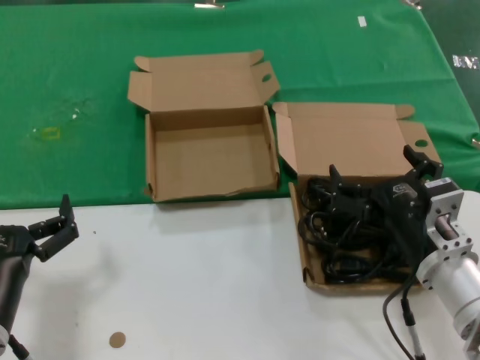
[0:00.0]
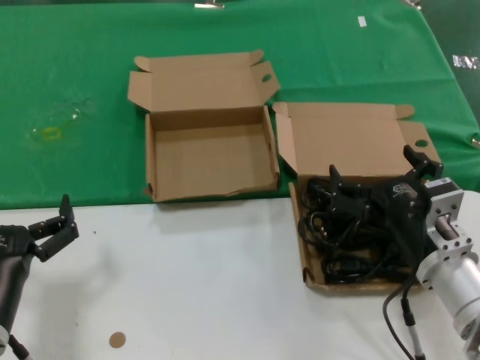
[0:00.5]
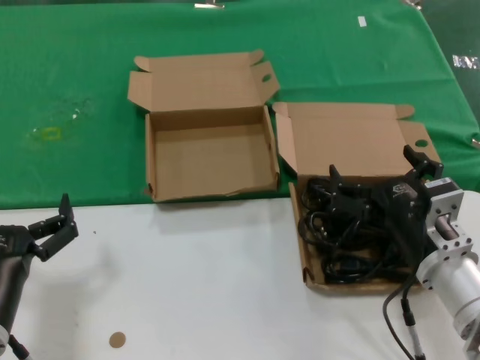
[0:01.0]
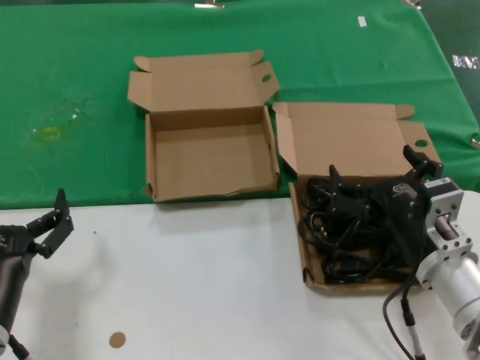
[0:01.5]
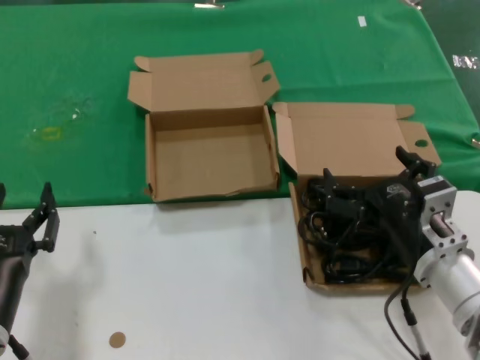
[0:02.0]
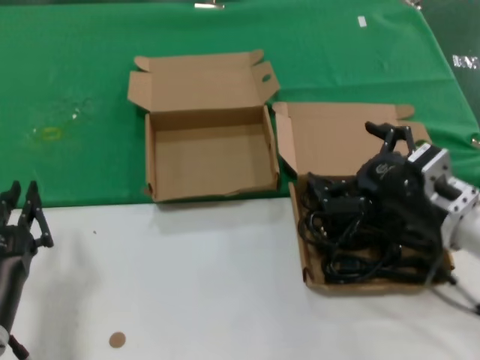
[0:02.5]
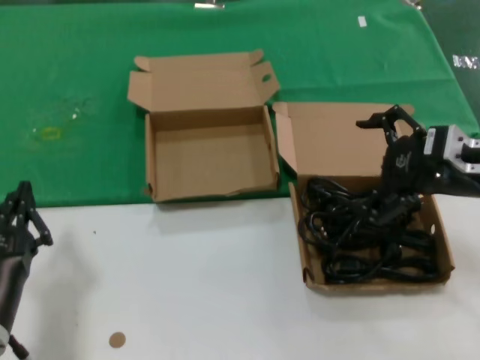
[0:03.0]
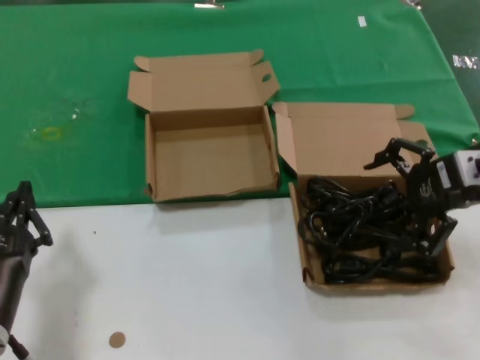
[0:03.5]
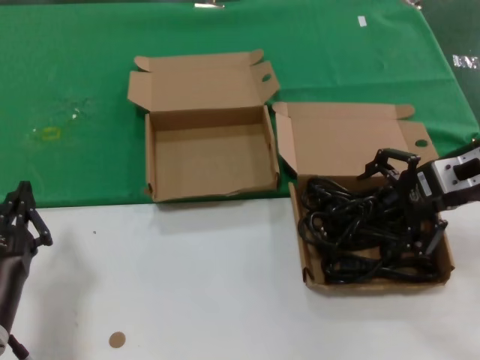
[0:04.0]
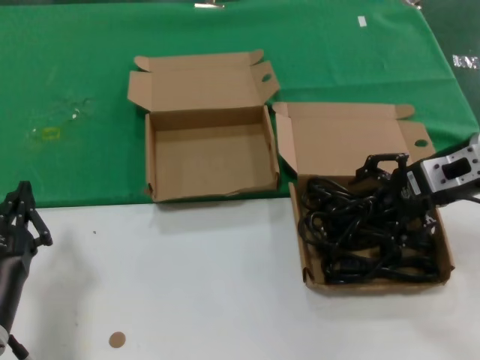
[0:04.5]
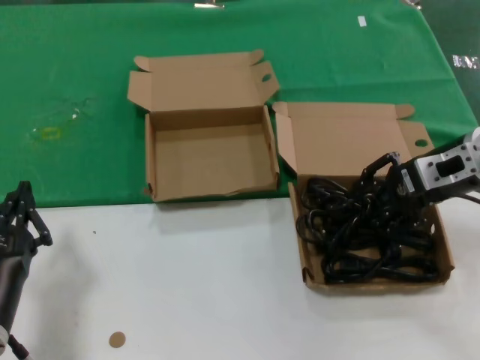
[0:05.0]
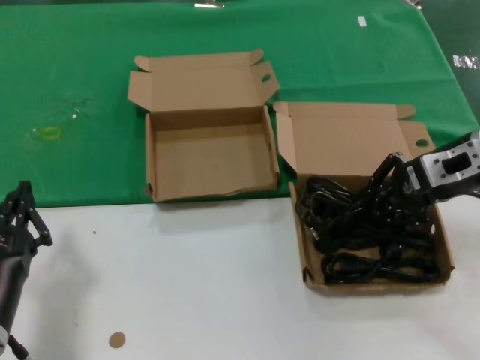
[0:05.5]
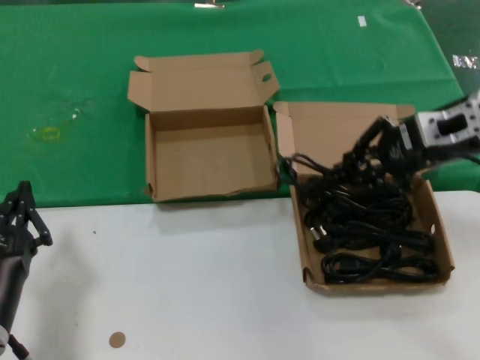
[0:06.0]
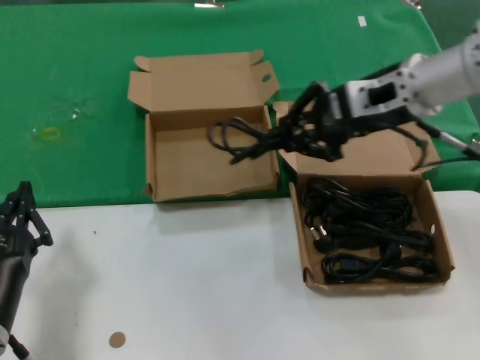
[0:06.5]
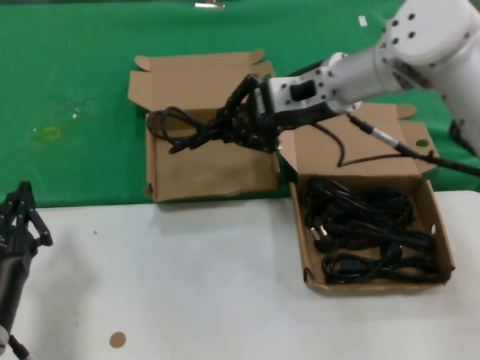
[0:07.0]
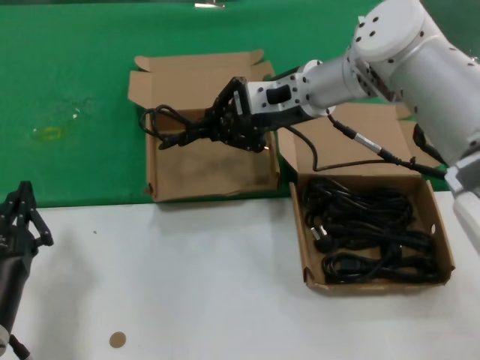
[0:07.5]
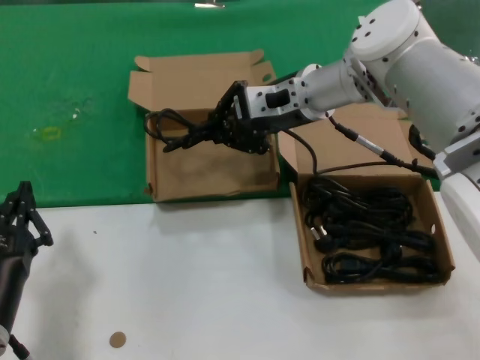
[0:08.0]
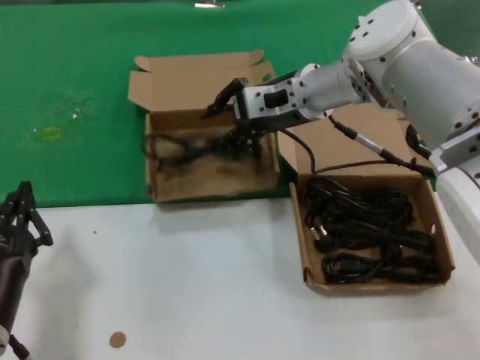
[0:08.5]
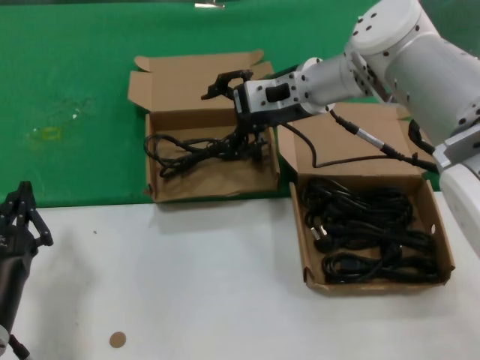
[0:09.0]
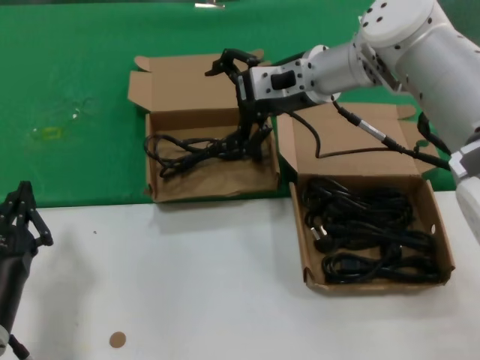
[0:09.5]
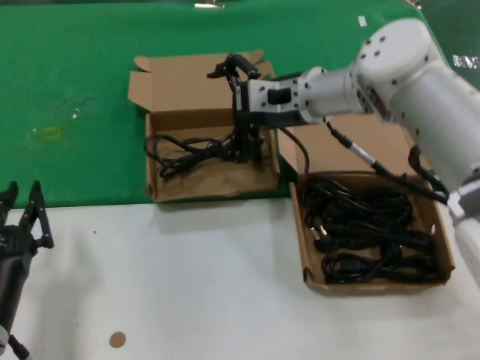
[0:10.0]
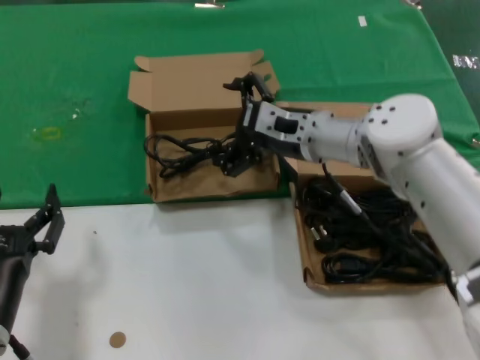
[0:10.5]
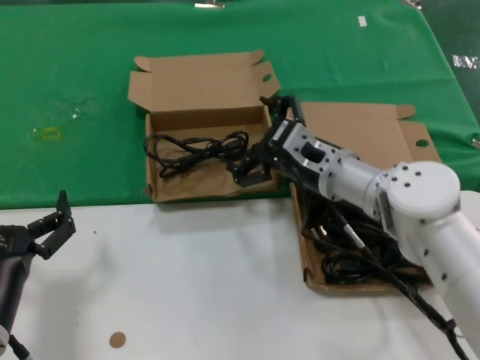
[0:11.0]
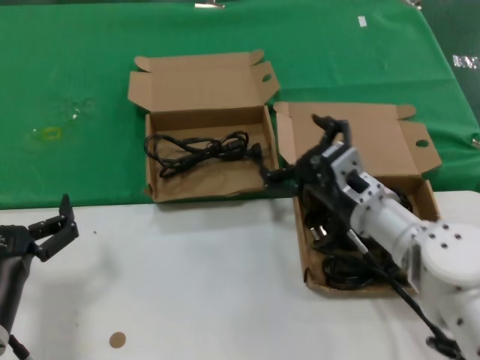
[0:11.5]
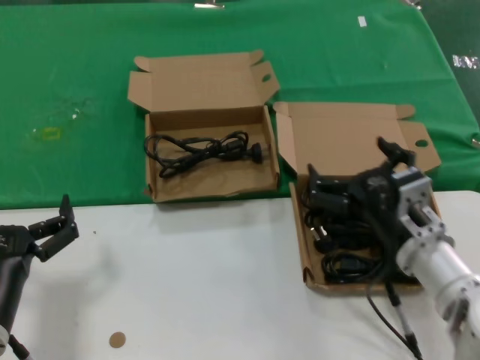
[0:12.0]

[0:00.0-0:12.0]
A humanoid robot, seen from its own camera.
Task of the whole recording: take the parts from the box containing them and put them into an empty box.
Step, 0:00.0 to 0:05.0: Grasp the data cable.
Step, 0:05.5 to 0:08.5: Place the data cable in the another box.
0:00.0 to 0:02.0: Both hands stay put.
0:02.0 to 0:04.0: The right hand goes roughly 25 cm upward, forward and to the right.
0:04.0 to 0:06.0: The hands stay close to where they were, moving slightly.
0:06.0 to 0:08.0: The right hand heads to the left and forward, covering approximately 20 cm.
0:08.0 to 0:10.0: The hands make only small movements.
0:10.0 to 0:12.0: The right hand travels backward and downward by about 25 cm.

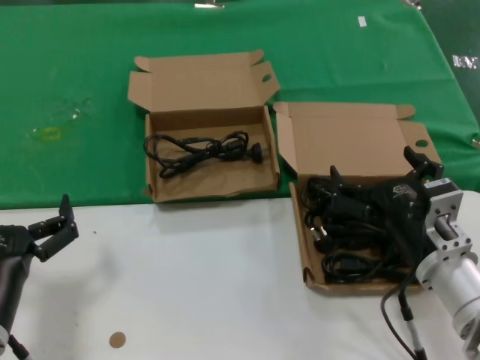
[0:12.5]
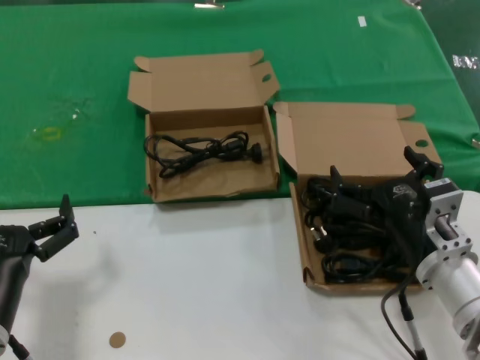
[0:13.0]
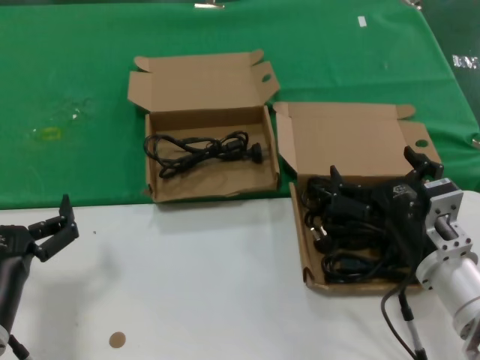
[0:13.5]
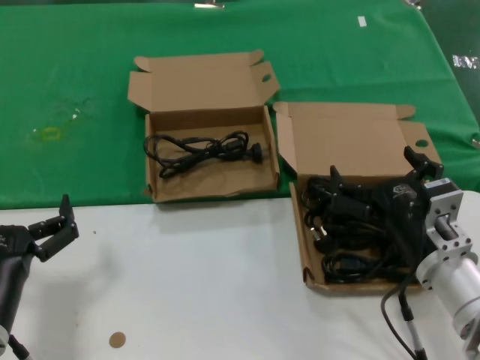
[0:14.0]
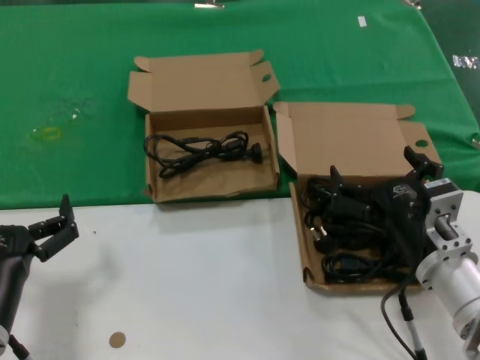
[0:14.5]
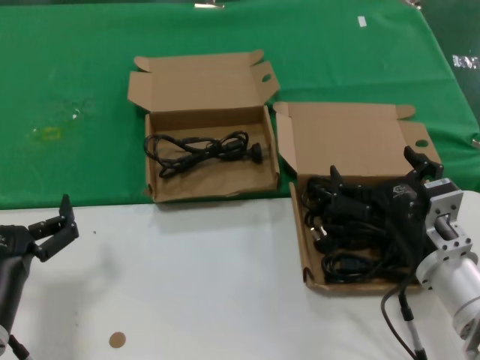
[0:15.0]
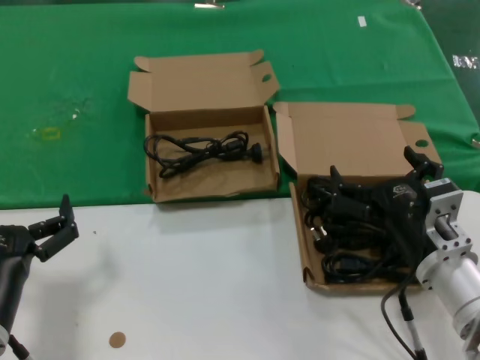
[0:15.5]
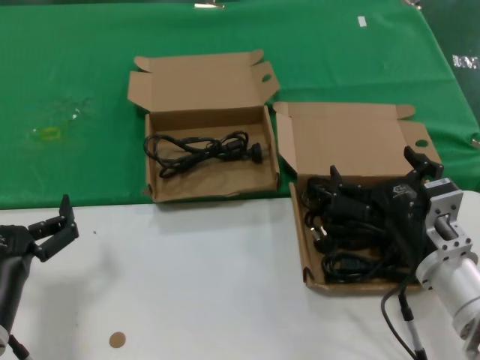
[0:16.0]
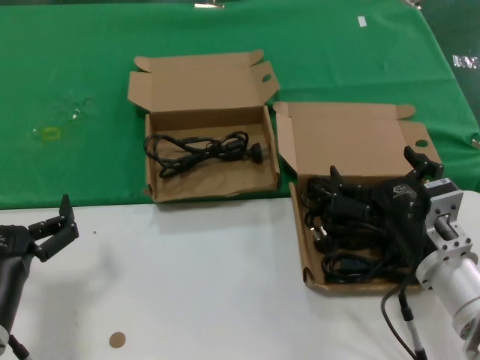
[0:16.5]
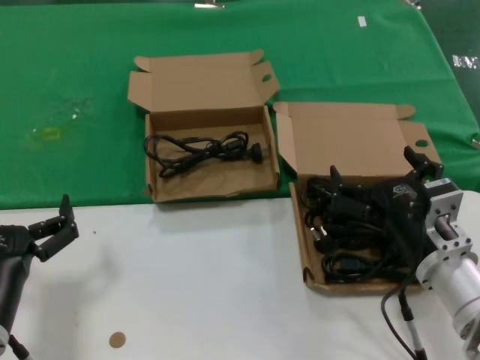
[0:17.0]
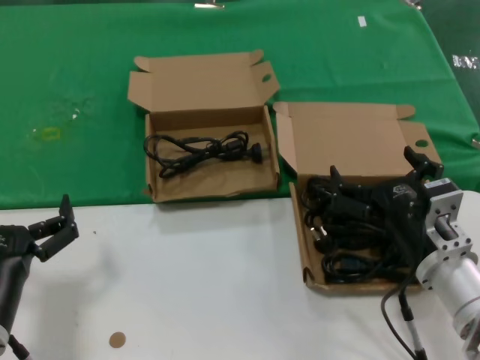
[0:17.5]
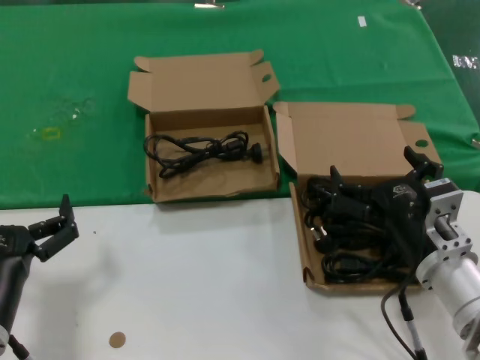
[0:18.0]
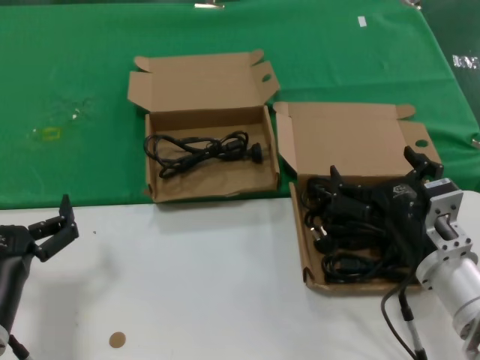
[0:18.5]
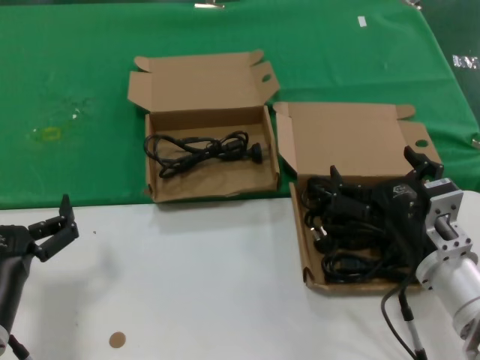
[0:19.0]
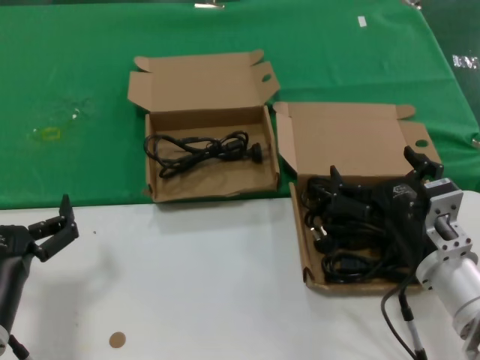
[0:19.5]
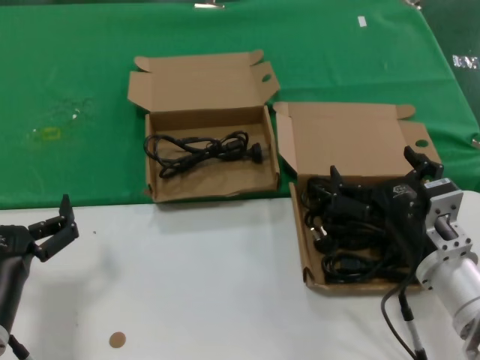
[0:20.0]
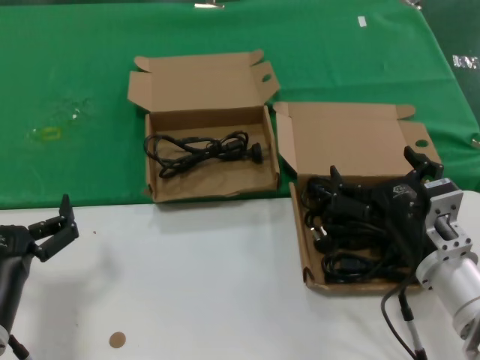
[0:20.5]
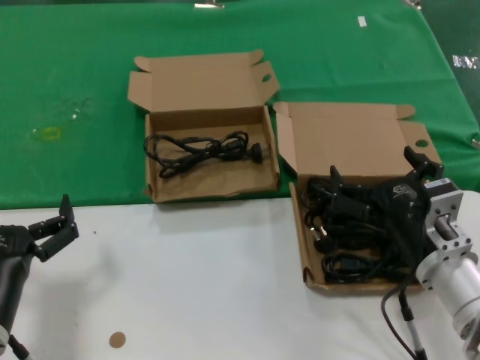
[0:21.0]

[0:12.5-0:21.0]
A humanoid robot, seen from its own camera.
Task of the whole recording: take the parts from the box containing them and put them into an empty box.
0:12.5 to 0:21.0: The two hands keep their place.
